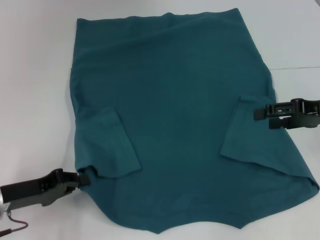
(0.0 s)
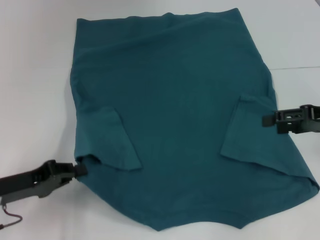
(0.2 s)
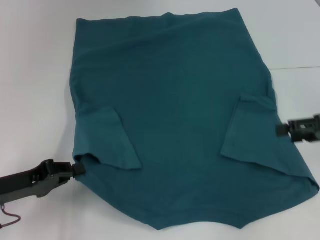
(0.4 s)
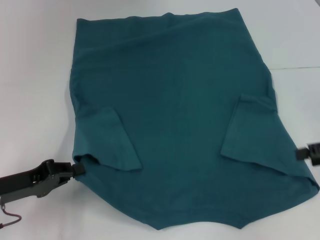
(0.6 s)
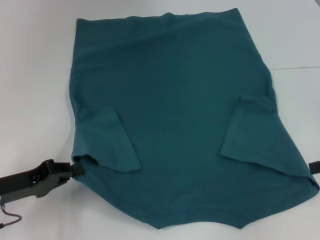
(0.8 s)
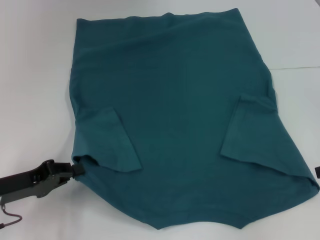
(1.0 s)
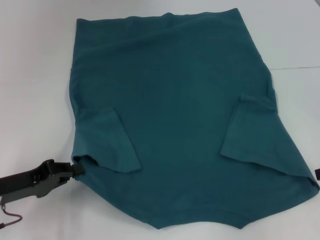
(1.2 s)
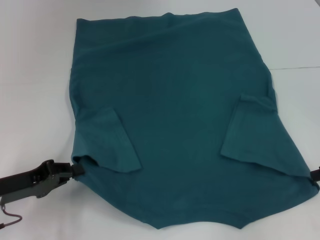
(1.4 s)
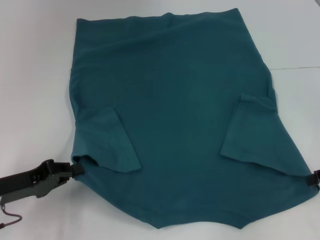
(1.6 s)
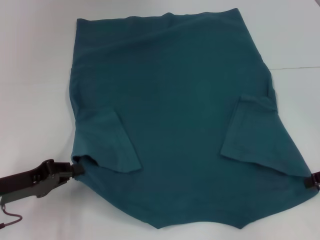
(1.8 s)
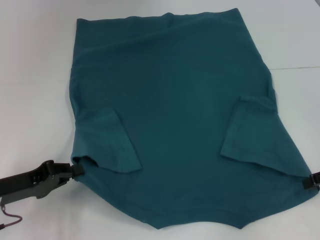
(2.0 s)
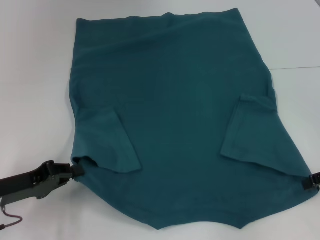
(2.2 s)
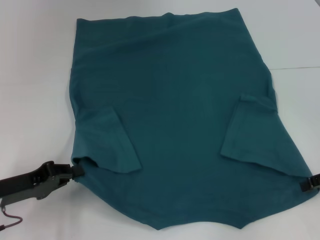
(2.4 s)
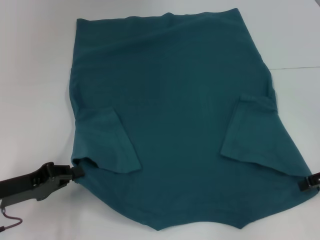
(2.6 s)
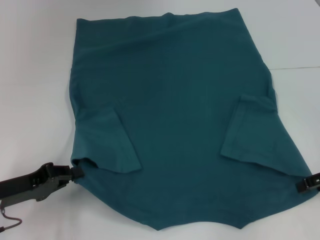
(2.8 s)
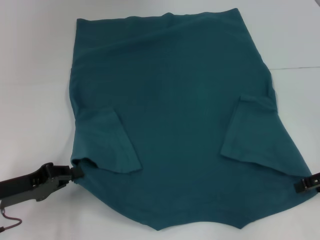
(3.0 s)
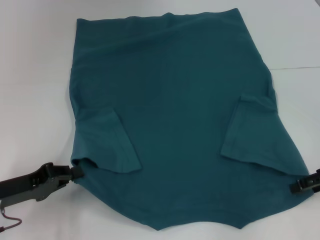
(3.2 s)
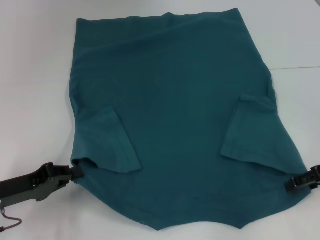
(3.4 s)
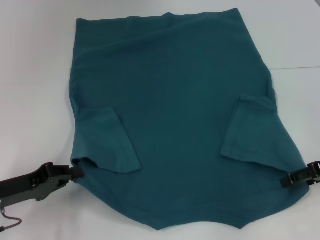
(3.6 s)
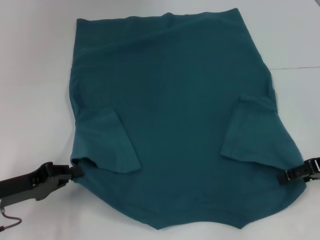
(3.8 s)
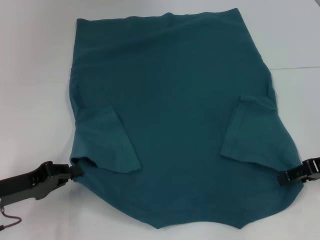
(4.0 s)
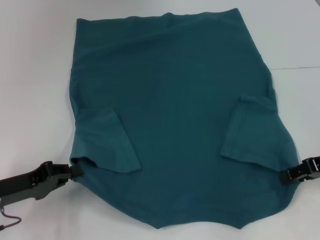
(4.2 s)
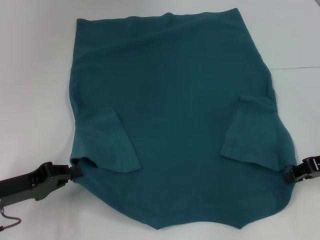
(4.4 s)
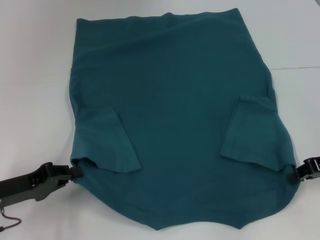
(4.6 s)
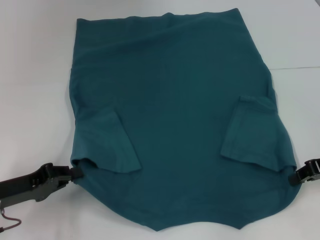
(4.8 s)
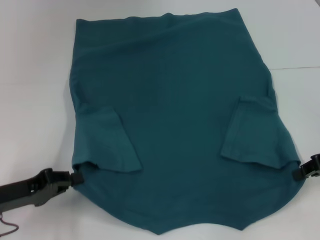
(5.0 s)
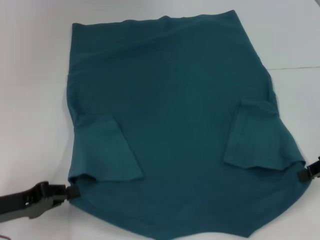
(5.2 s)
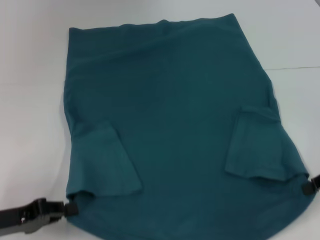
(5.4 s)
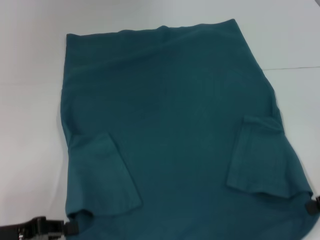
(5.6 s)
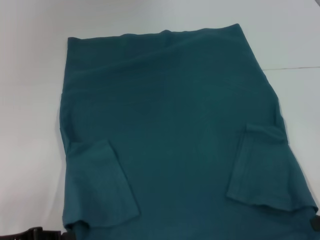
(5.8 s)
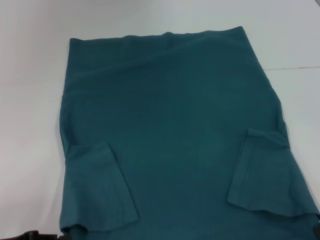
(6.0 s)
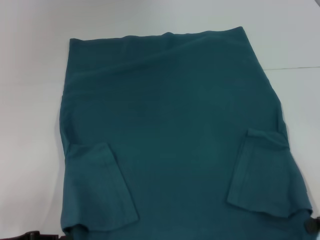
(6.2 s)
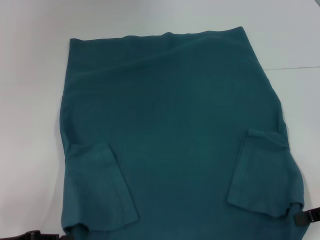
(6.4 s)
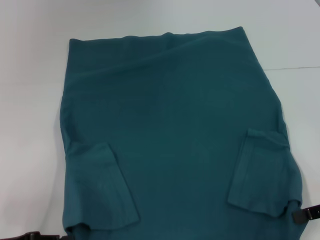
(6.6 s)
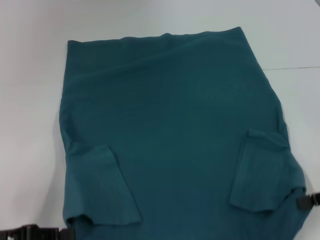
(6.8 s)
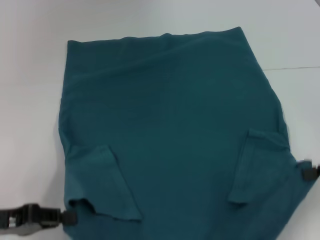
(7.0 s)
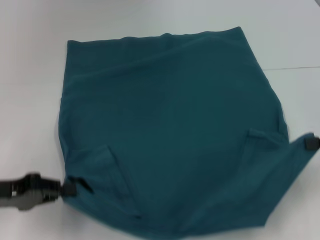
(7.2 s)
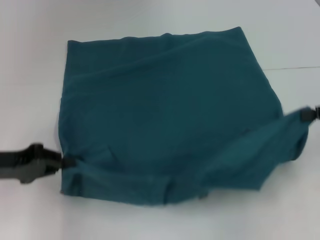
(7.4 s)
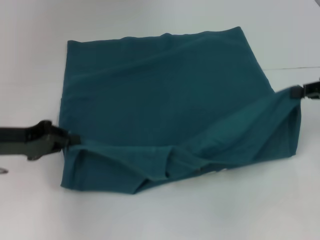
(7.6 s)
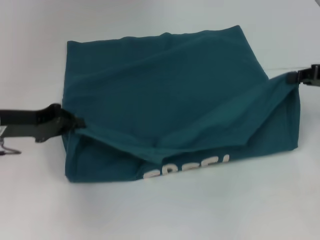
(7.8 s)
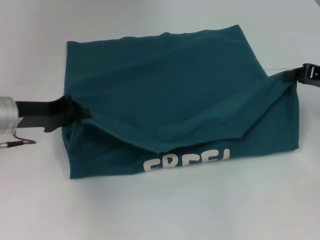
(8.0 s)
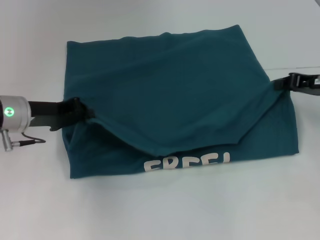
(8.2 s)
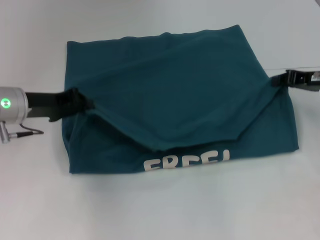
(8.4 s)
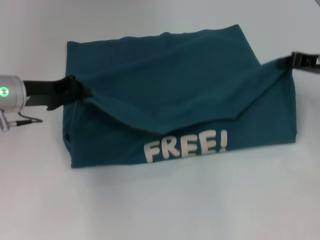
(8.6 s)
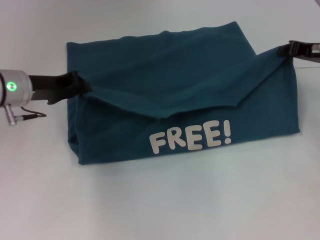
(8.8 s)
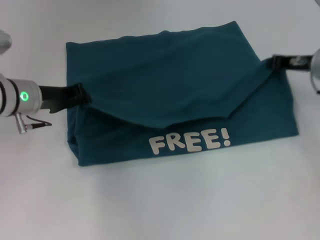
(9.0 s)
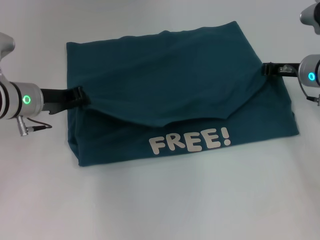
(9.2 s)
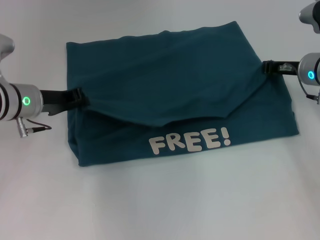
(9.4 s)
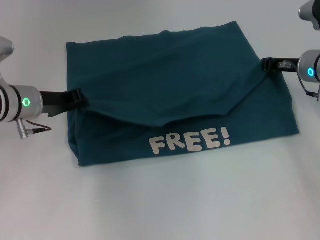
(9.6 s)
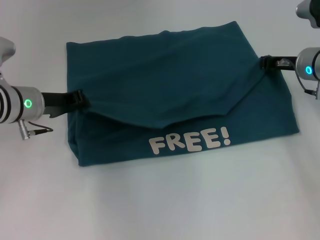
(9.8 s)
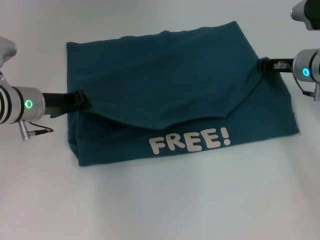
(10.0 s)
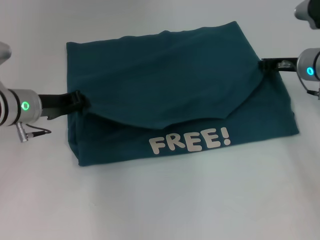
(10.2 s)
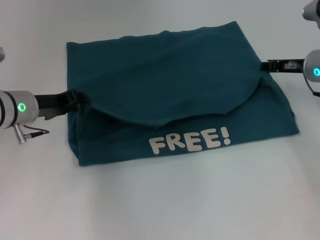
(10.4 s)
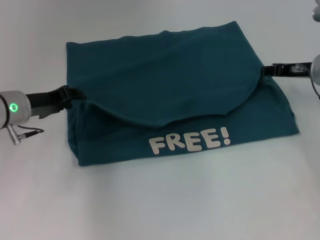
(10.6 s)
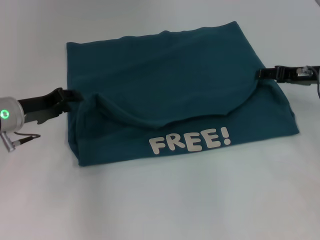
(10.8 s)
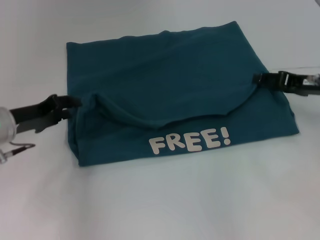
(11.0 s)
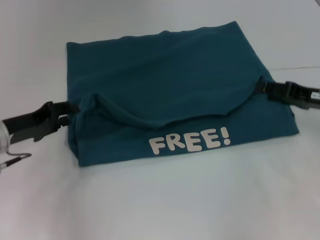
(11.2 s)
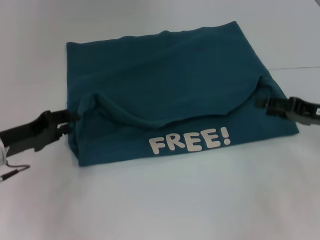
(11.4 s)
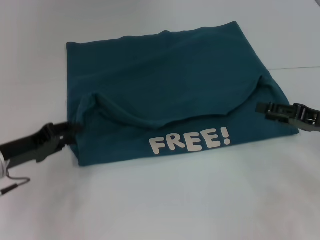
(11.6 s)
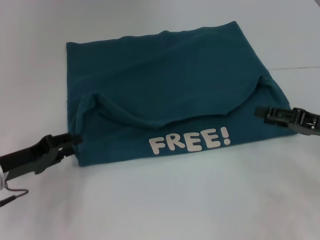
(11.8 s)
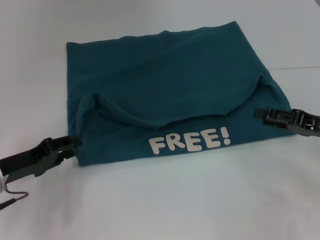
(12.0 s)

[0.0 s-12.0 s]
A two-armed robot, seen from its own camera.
Step, 1.0 to 5.0 s: Grab the bottom right corner with your right hand.
Step, 5.2 to 11.2 s: Fold the clothes to the left.
Step, 5.2 to 11.2 s: Fold the clothes to the right.
0.0 to 1.6 s: The right gripper is displaced to the right by some 5 cm.
1.6 to 4.4 s: The grippers move only a little.
4.4 to 6.0 s: The grippers both shift backward by approximately 5 cm. The right gripper closes its fingers.
6.0 to 7.6 s: The two grippers go some 15 cm forward and upward.
7.6 to 9.0 s: The right gripper heads forward and to the left, covering approximately 10 cm; the left gripper heads forward and to the right, covering roughly 10 cm.
9.0 to 10.4 s: The grippers stay close to where they were, moving slightly.
10.4 to 12.0 s: The grippers both shift backward by approximately 10 cm. The right gripper opens its fingers.

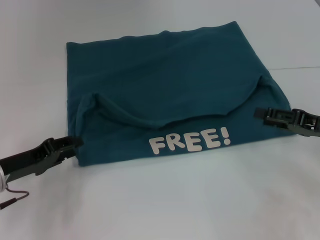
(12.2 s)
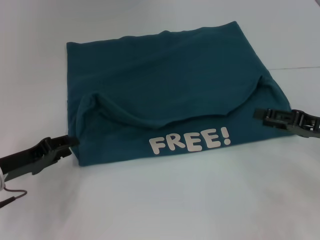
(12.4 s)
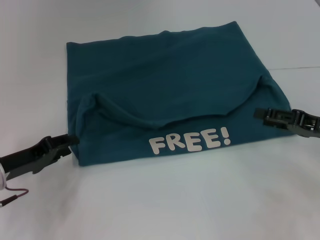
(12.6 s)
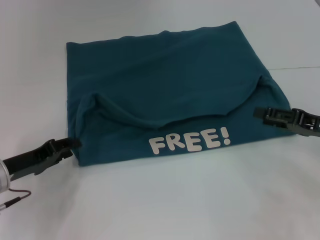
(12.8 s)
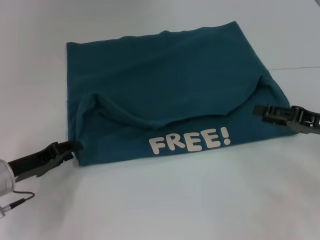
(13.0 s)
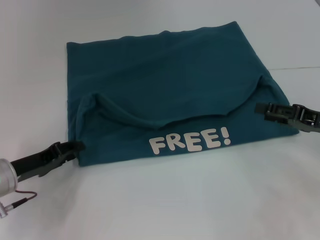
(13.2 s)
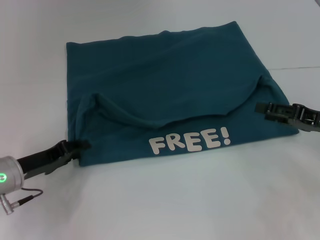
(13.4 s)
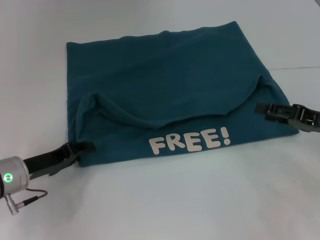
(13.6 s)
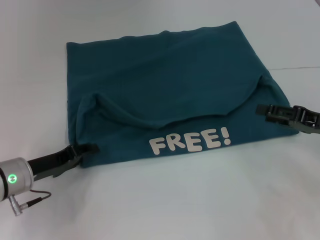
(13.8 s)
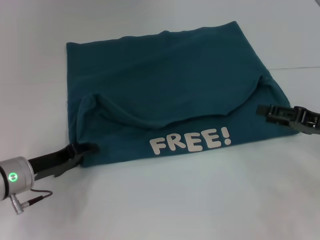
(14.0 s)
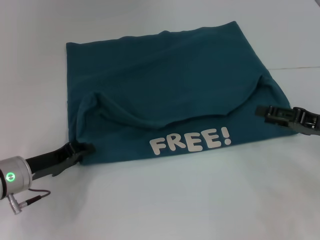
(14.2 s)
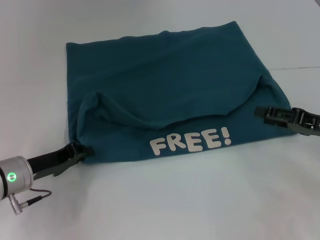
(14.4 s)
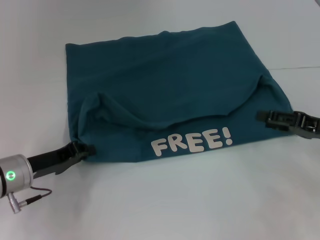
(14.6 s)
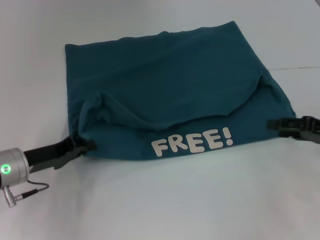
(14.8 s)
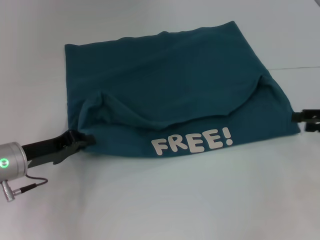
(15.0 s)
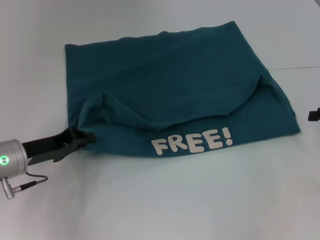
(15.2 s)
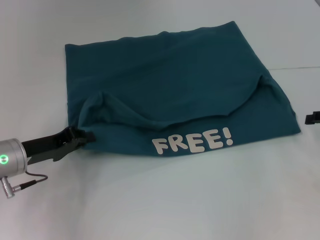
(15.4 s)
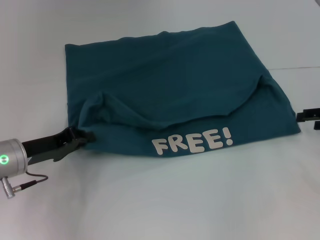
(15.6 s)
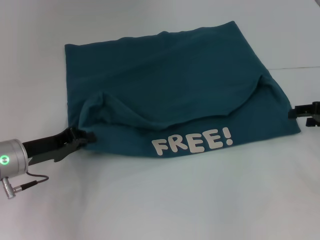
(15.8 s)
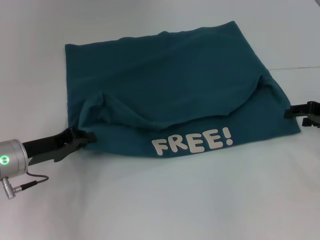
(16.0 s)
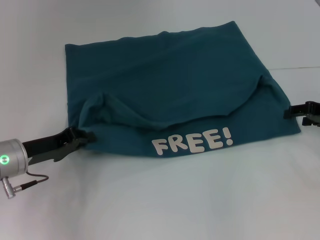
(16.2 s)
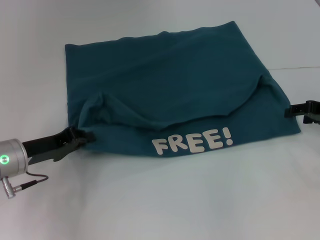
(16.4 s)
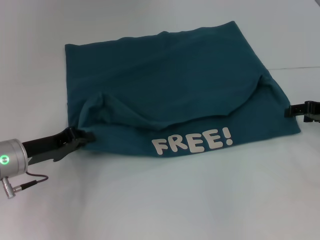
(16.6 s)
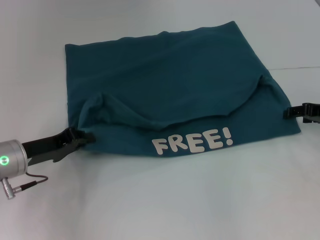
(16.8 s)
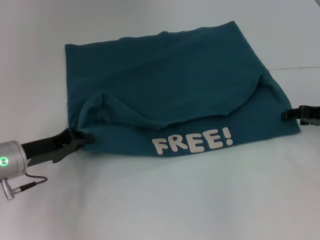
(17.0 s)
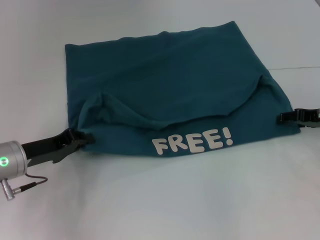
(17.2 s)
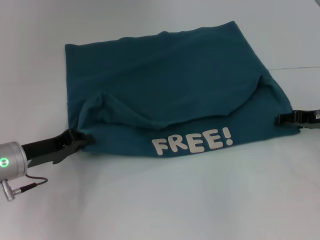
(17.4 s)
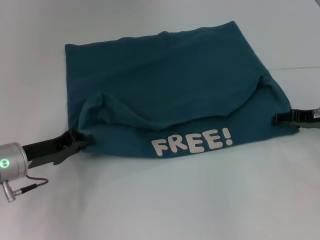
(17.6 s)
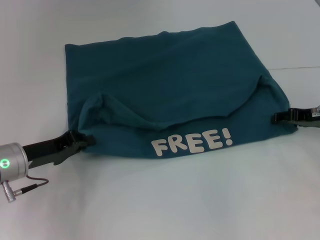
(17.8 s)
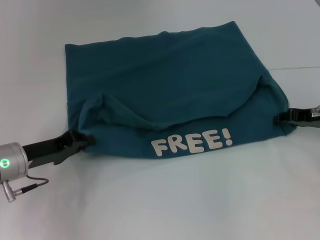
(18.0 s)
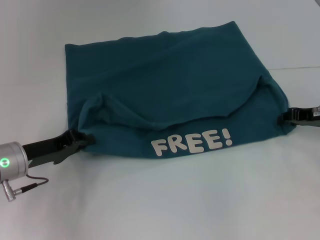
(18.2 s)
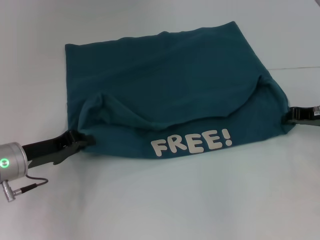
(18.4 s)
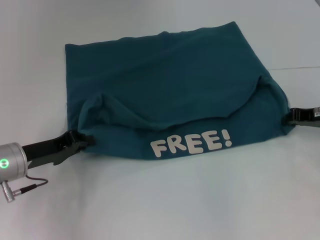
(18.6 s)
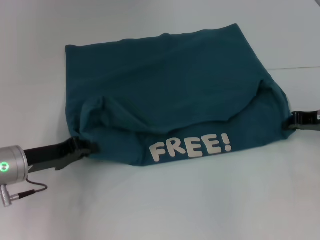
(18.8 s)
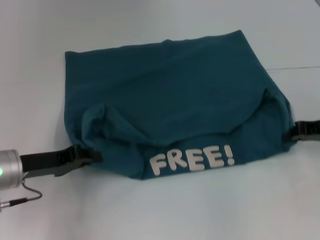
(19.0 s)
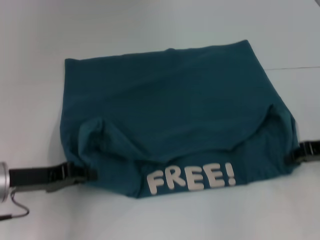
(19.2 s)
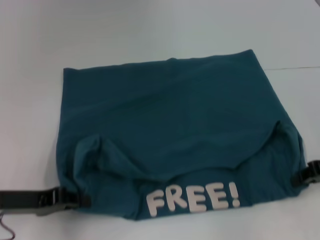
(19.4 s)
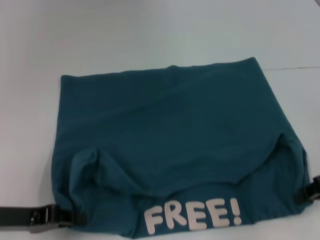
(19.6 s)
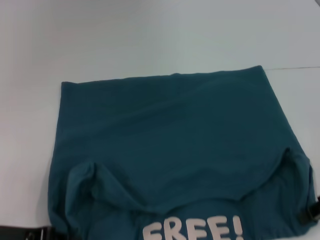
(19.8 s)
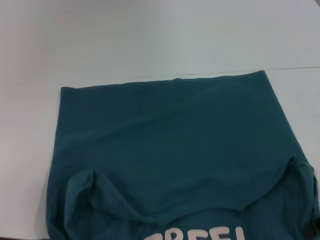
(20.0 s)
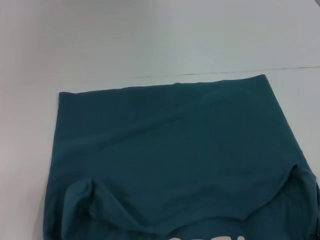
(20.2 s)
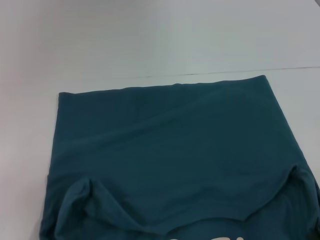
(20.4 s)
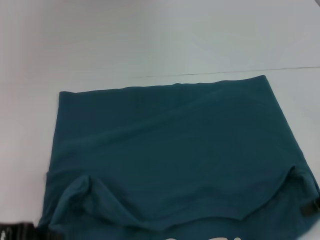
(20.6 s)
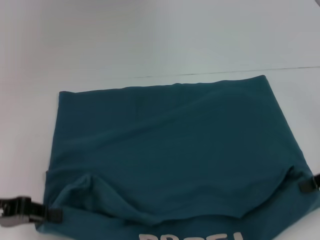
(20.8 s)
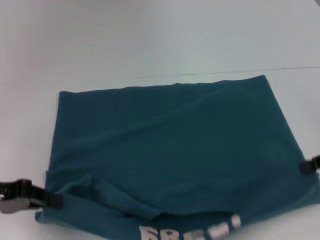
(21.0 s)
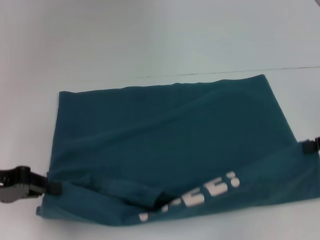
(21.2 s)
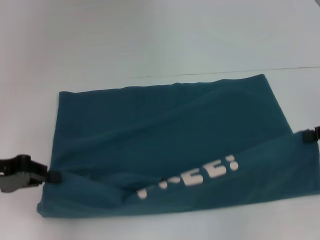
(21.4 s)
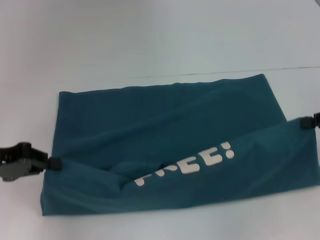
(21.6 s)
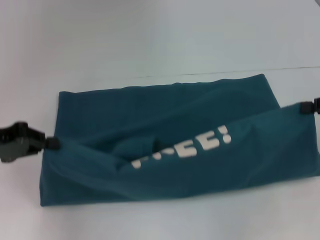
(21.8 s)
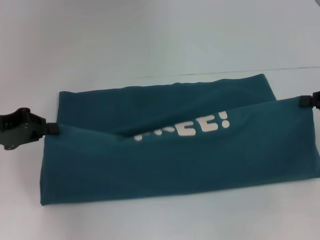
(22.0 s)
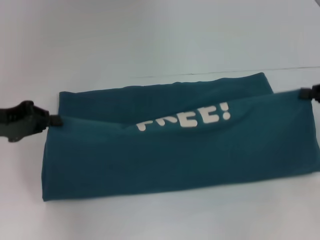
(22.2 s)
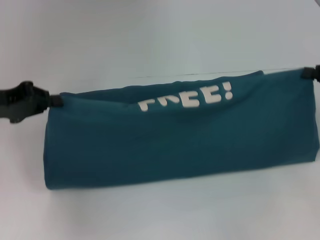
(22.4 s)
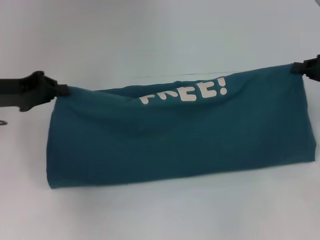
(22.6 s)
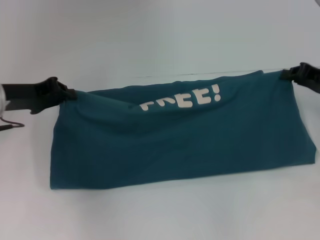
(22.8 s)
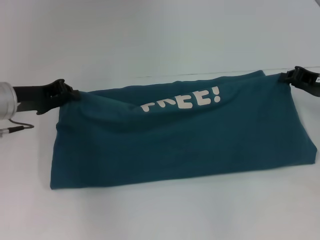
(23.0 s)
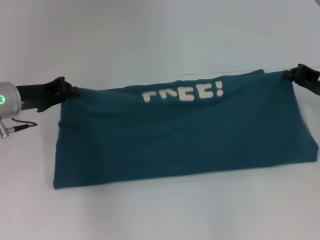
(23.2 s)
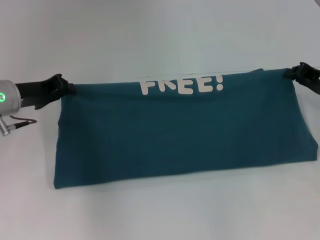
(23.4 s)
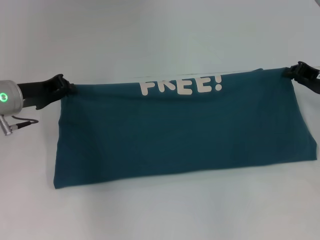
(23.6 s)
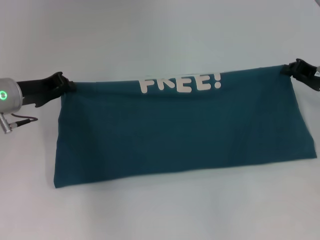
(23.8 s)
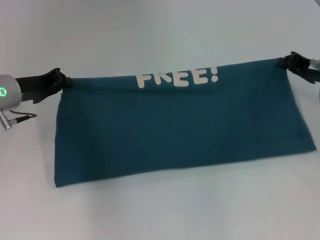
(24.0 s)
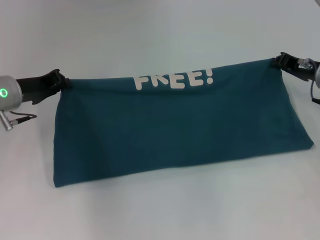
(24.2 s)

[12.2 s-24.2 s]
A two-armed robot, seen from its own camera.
Step, 12.2 to 20.2 s: Pull the clothes with your left hand.
Step, 12.2 to 20.2 s: Pull the clothes with your right hand.
12.2 to 13.8 s: The grippers move only a little.
13.8 to 15.2 s: The right gripper goes approximately 5 cm to the right; the left gripper closes up.
15.2 to 16.6 s: The right gripper ends up approximately 5 cm from where it was.
16.6 to 18.2 s: The grippers move only a little.
18.2 to 19.8 s: The two grippers go roughly 10 cm backward. The right gripper closes its fingers.
19.8 to 21.2 s: The right gripper shifts by roughly 5 cm. Meanwhile the left gripper shifts about 5 cm upward.
21.2 to 22.6 s: The two grippers go roughly 5 cm forward.
22.6 to 24.2 s: The left gripper shifts by roughly 5 cm. The right gripper moves to the left and forward, roughly 10 cm.
